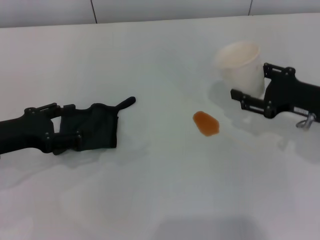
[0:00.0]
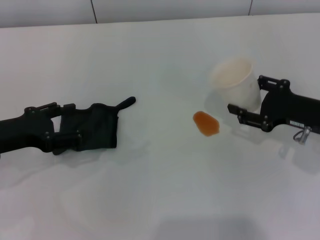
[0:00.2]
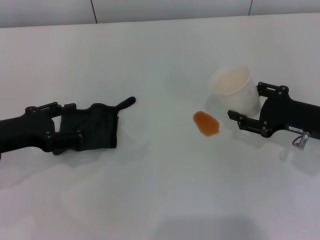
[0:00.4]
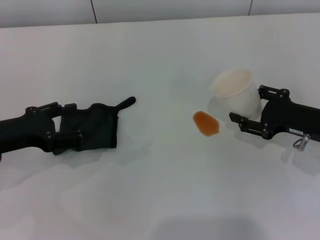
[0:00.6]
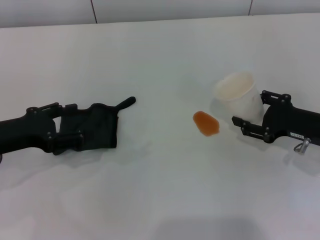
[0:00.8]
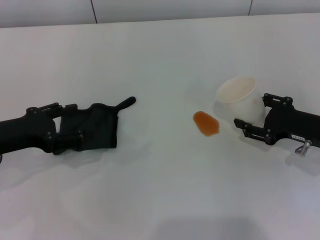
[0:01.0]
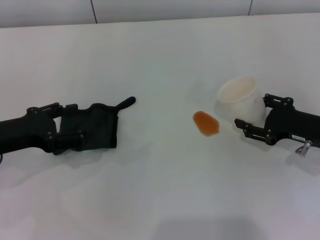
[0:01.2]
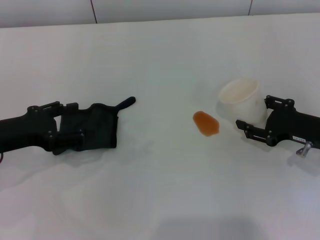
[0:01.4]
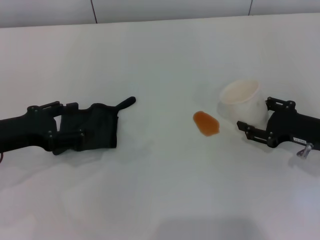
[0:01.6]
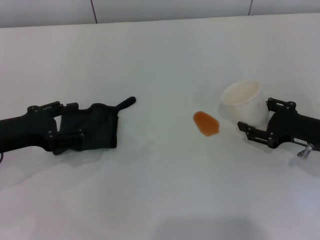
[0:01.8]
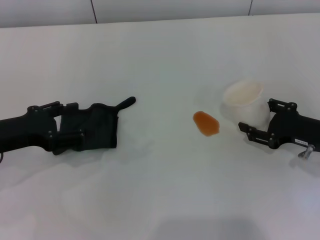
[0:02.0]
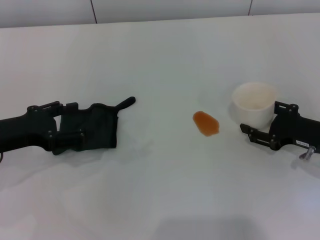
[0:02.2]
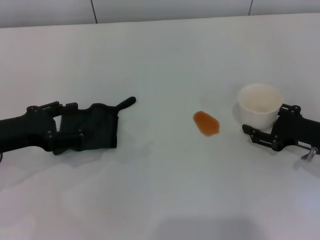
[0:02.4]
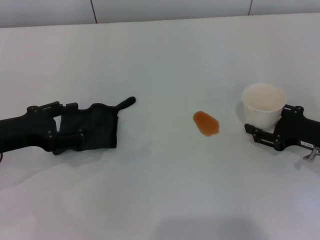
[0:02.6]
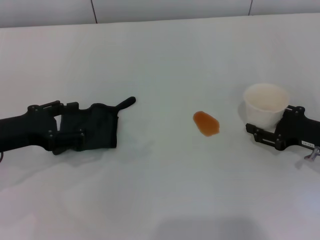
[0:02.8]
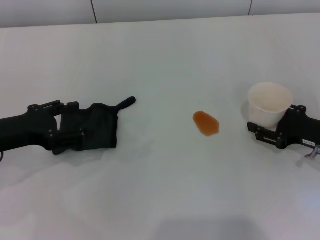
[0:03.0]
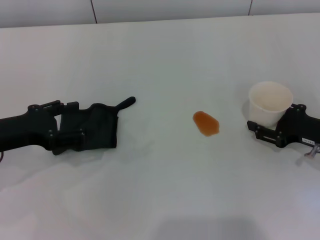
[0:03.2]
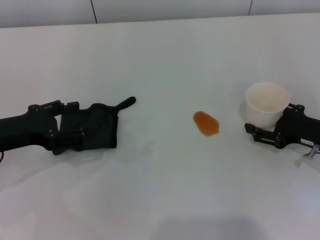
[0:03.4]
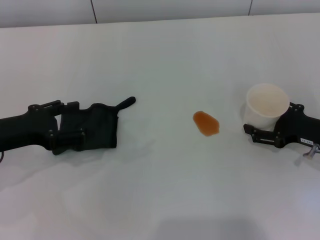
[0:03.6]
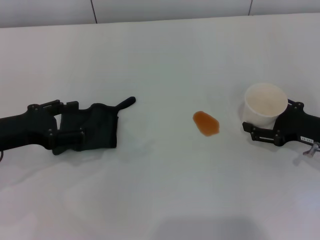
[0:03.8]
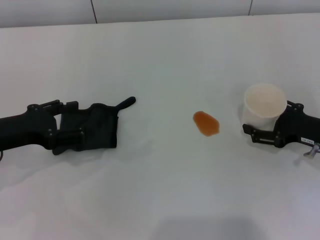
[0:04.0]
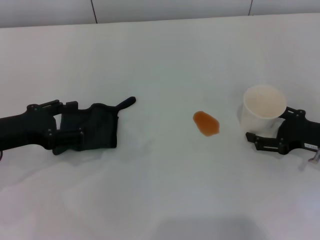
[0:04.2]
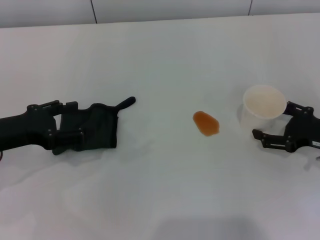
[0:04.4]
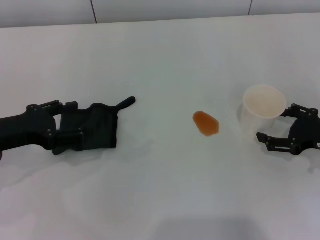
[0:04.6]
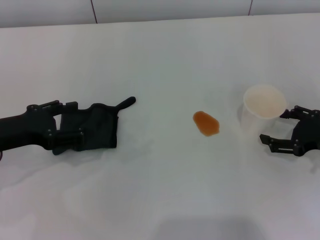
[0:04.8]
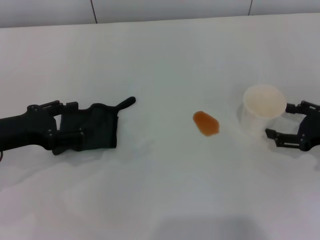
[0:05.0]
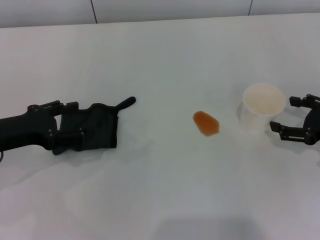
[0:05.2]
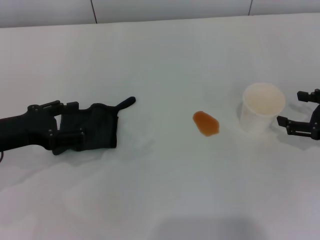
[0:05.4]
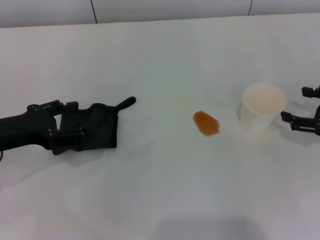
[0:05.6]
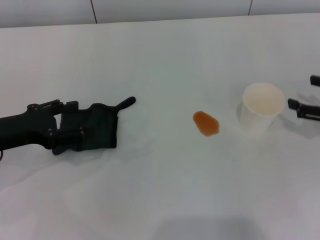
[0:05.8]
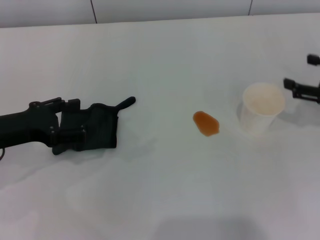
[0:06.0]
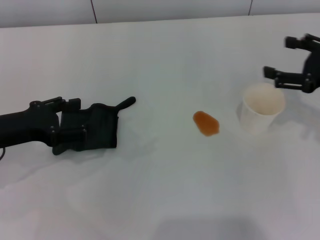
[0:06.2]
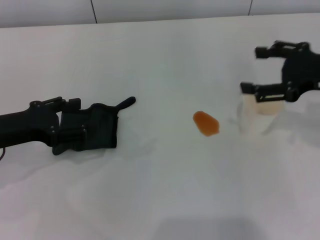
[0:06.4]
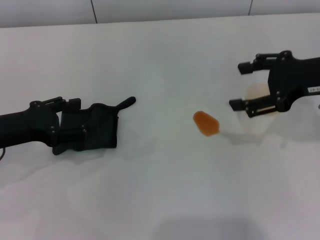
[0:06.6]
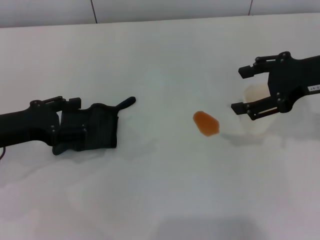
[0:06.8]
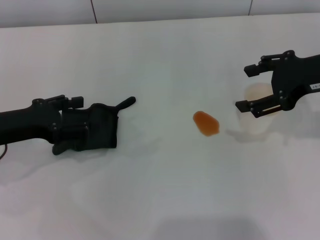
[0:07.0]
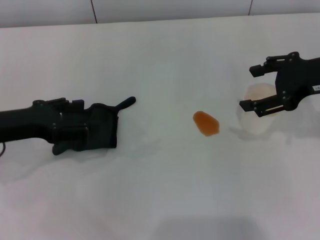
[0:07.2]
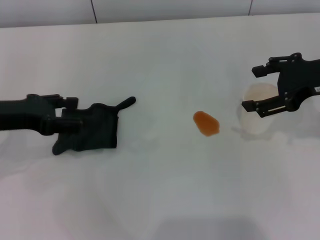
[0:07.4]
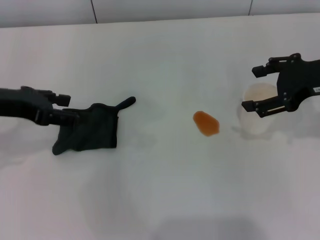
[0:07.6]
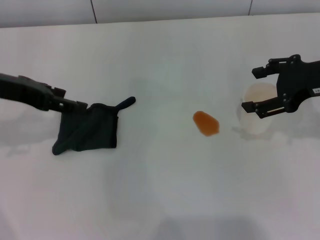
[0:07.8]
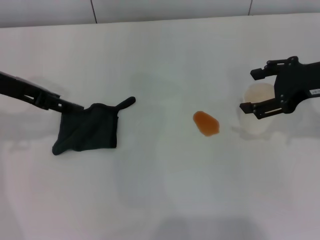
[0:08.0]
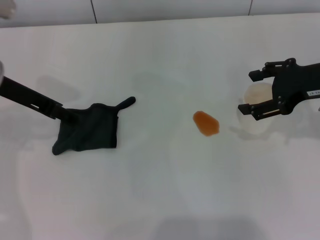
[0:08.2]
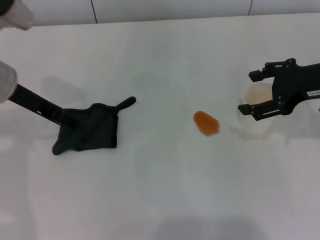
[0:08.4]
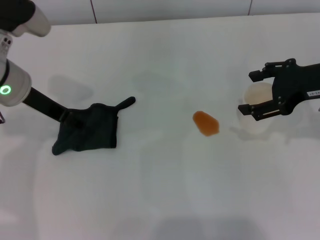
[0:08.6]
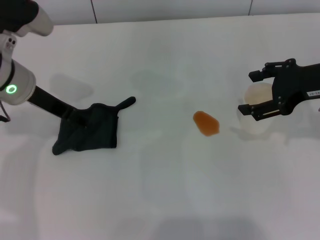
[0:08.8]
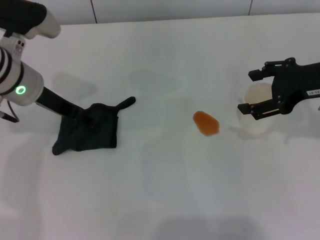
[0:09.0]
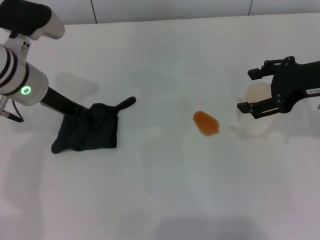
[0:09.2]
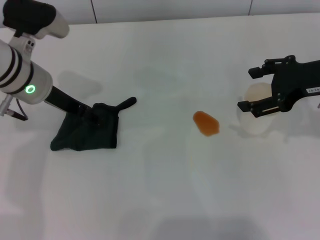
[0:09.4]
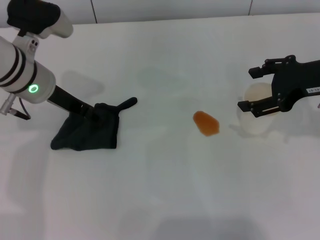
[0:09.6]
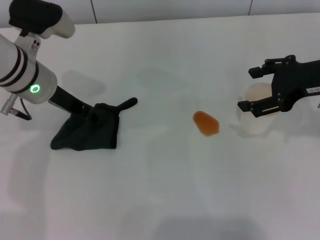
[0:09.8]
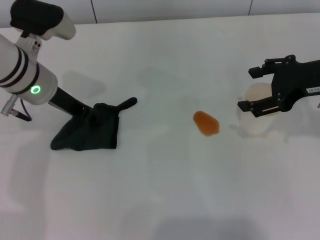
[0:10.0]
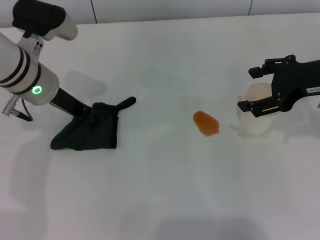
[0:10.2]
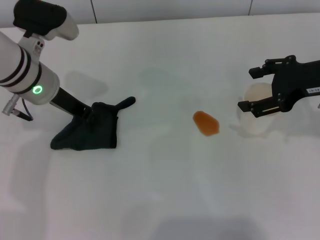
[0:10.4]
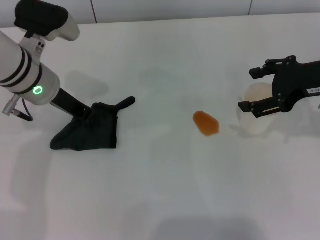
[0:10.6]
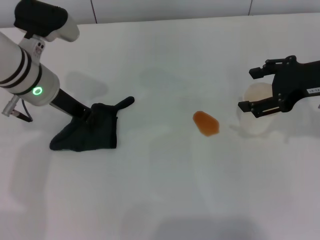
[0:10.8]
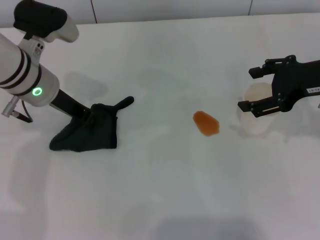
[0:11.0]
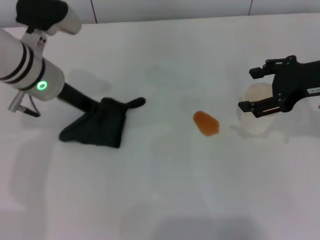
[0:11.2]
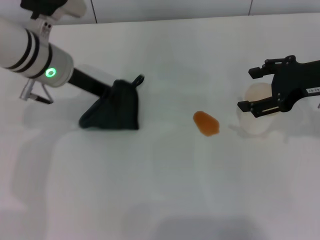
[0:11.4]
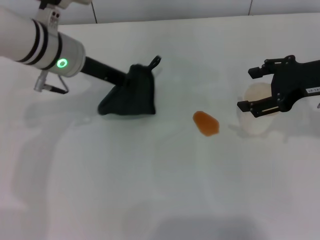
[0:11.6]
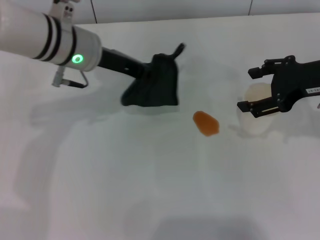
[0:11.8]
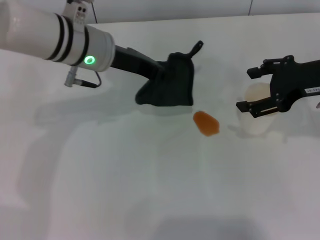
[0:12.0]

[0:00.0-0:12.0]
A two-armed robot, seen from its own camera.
Step, 0:00.0 to 0:05.2: Stand the paper cup upright with the right gripper.
Step, 0:05.4 to 0:11.0: Grasp the rag with the left gripper.
0:00.0 to 0:01.6: The right gripper ends up roughly 5 cm from where it was.
0:01.6 to 0:03.0: The grippers stay close to where they were, moving slightly.
0:03.0 to 0:04.4: The right gripper opens its fingers.
0:04.4 to 0:06.0: The right gripper goes roughly 5 cm upward.
0:06.0 to 0:07.6: The right gripper heads to the left and upward, covering roughly 10 cm, while the left gripper is displaced upward by approximately 5 cm.
0:07.6 to 0:09.0: The left gripper heads to the right and forward, covering about 10 cm.
0:09.0 to 0:10.4: The left gripper closes its fingers.
0:10.4 to 0:12.0: The left gripper is displaced to the right by approximately 5 cm.

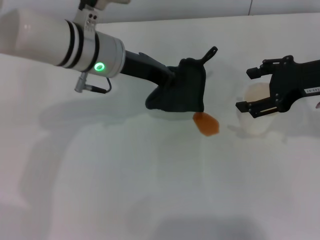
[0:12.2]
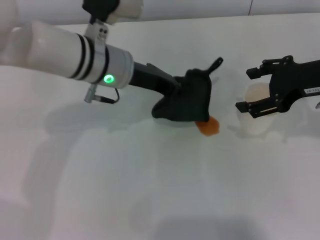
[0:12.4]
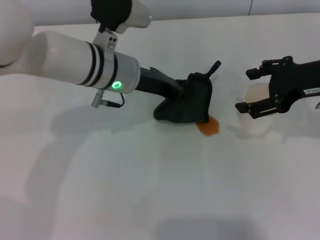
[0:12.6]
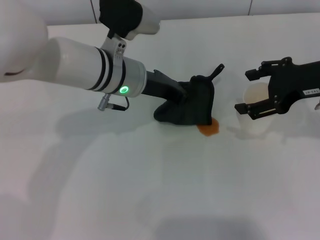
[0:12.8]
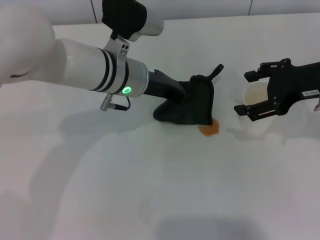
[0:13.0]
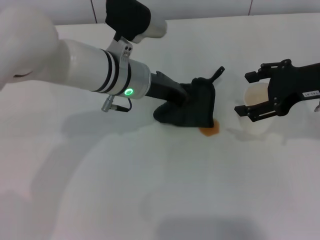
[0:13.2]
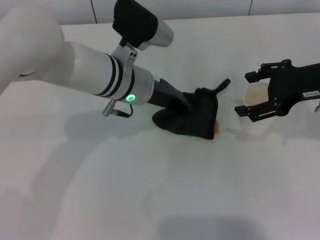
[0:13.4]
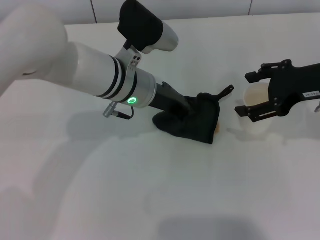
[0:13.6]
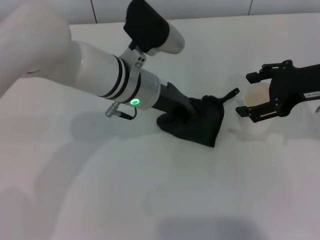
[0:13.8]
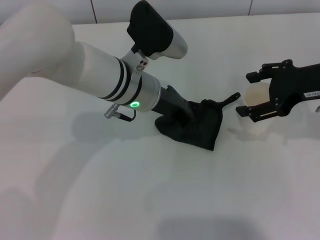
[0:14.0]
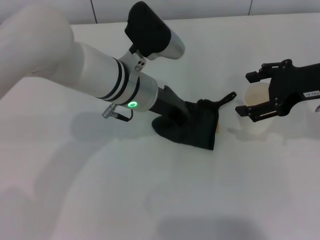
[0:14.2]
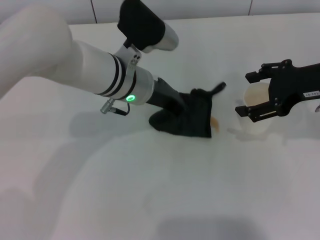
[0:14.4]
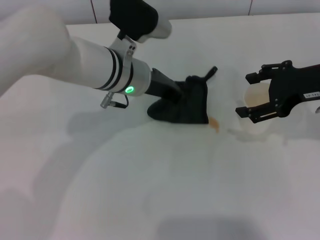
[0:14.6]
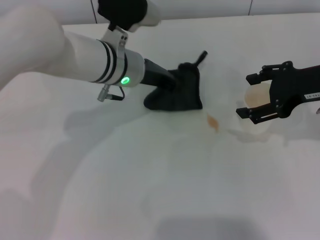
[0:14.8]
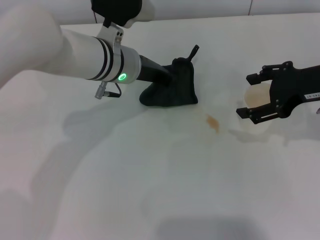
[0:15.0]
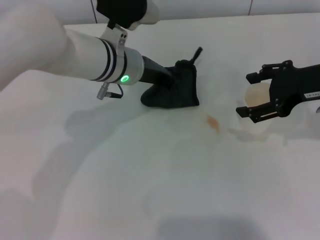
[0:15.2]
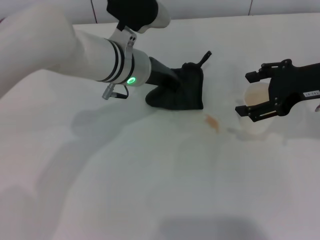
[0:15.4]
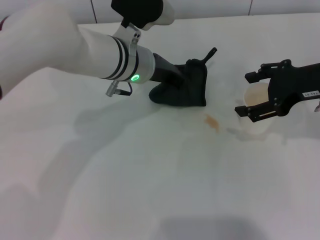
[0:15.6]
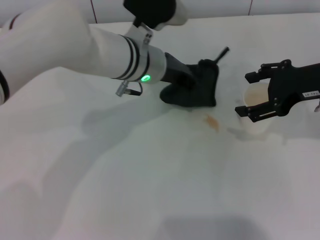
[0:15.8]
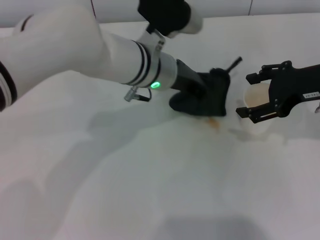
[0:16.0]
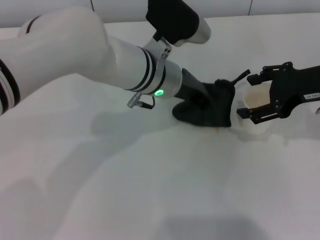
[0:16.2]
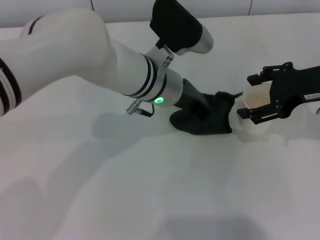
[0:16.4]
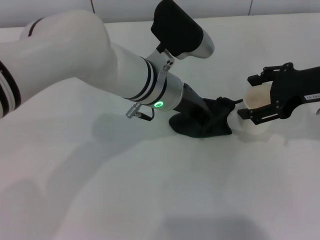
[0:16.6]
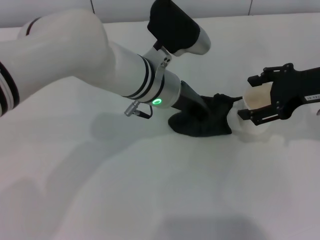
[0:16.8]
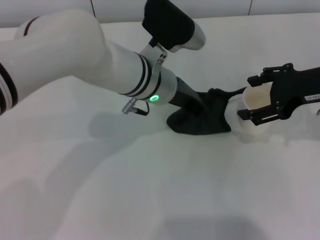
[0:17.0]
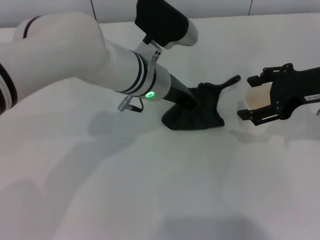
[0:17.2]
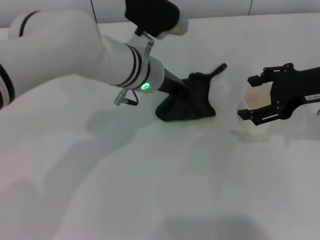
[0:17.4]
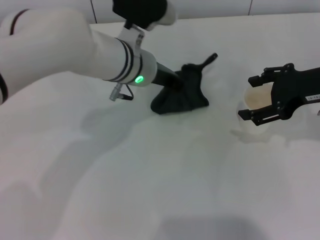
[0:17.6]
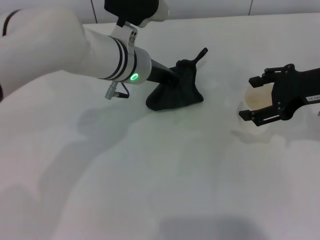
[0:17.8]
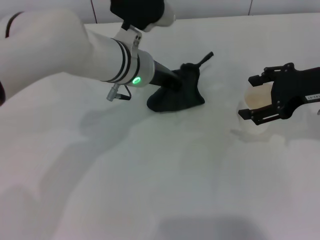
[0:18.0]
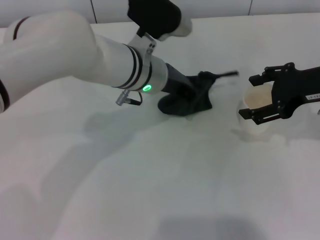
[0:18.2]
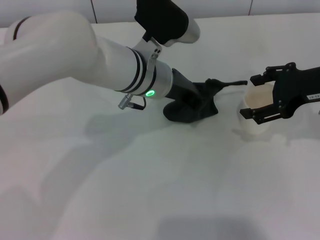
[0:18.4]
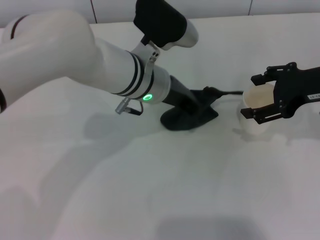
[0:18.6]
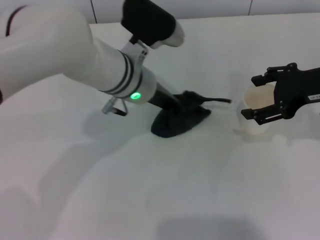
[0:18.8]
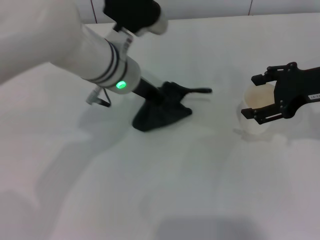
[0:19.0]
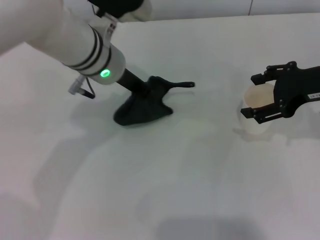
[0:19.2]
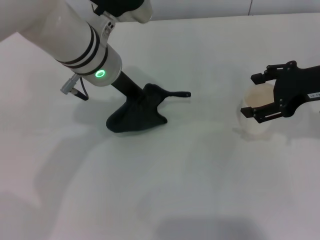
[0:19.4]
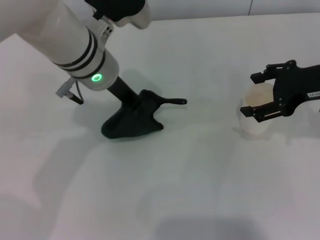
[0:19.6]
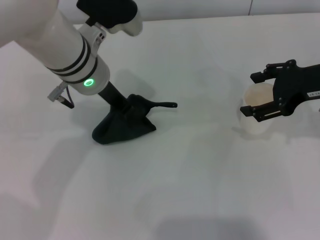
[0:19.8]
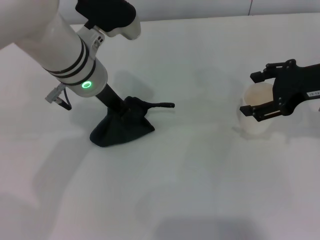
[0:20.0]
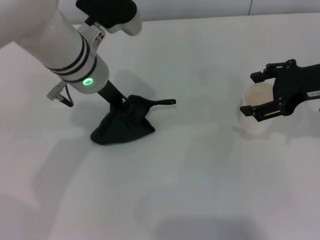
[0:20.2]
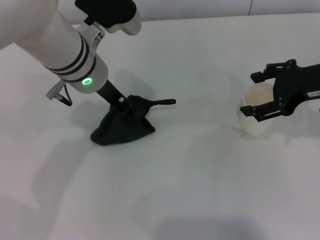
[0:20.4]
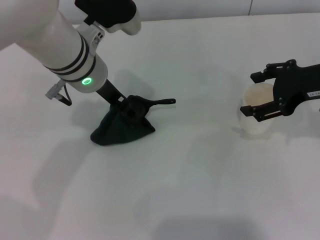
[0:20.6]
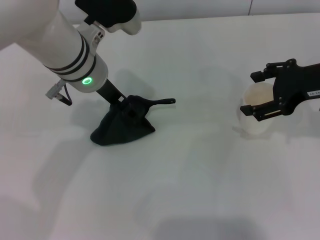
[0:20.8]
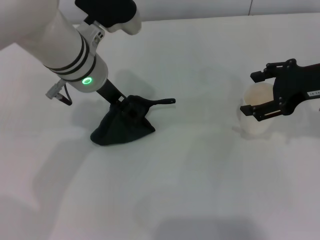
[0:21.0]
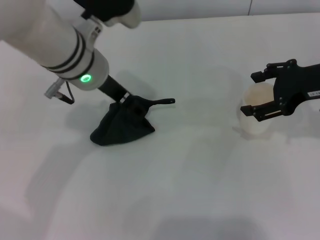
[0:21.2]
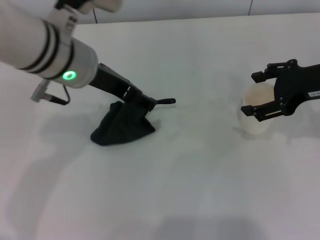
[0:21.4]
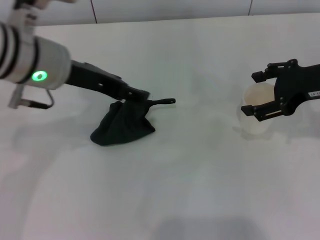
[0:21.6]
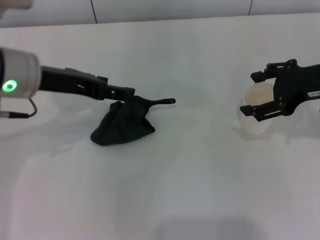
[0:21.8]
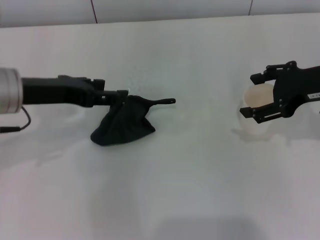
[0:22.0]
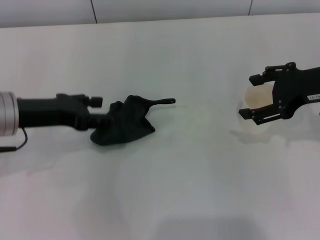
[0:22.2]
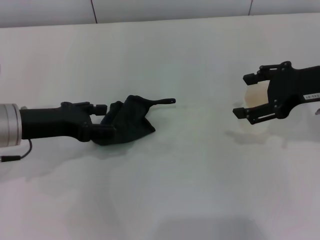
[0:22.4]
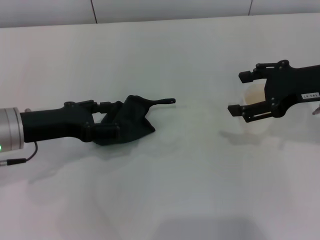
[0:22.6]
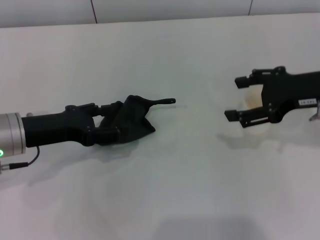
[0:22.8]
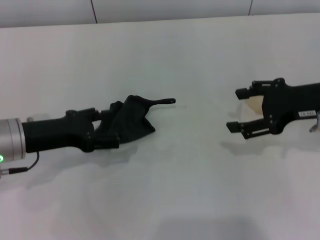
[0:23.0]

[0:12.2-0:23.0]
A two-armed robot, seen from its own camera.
Step, 0:12.2 to 0:19.4: Wipe the stains off the table with the left gripper.
Step, 0:19.8 to 0:21.8: Place the rag on the table with the left gripper.
0:12.2 to 0:13.8: The left gripper ends up some 5 cm from where it was.
0:13.8 to 0:15.2: There are only small adjustments of the grippers.
0:15.2 to 0:16.8: The left gripper changes place by roughly 5 cm.
0:16.8 to 0:18.4: The grippers move only a little.
0:18.4 to 0:20.0: The left gripper shifts roughly 5 cm to the left.
0:20.0 to 0:21.4: The left gripper shifts by about 5 cm, and opens up.
0:21.4 to 0:23.0: The left gripper heads to the left, downward and backward, covering approximately 15 cm.
